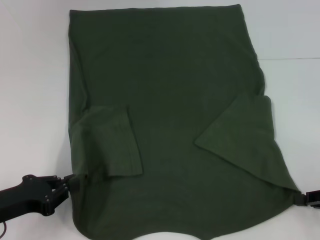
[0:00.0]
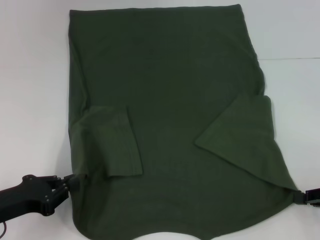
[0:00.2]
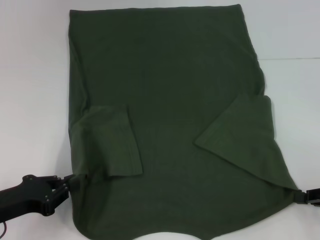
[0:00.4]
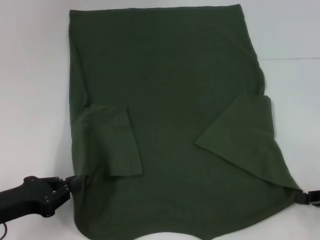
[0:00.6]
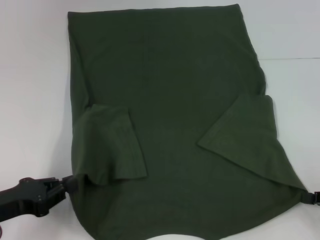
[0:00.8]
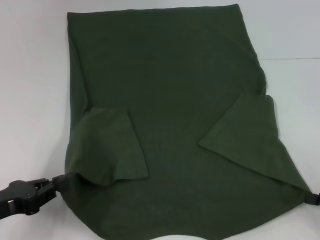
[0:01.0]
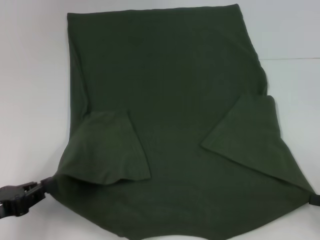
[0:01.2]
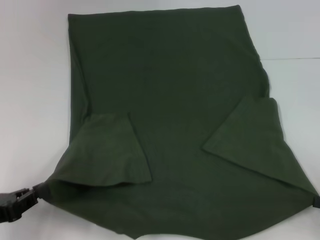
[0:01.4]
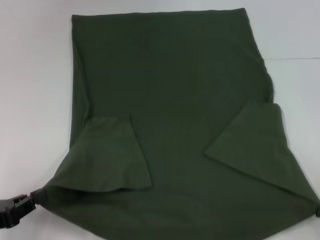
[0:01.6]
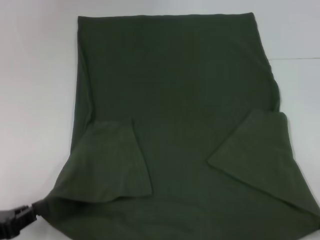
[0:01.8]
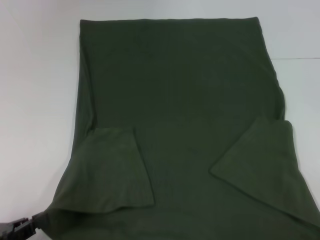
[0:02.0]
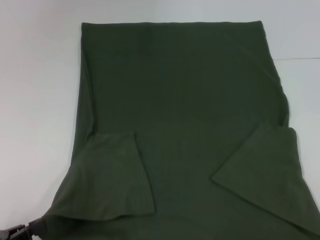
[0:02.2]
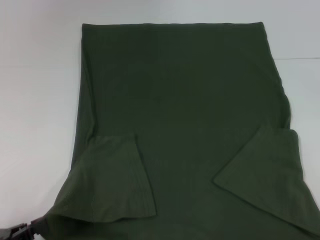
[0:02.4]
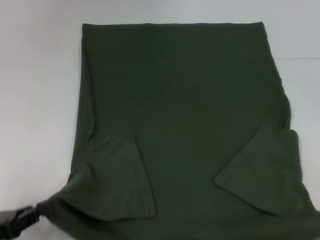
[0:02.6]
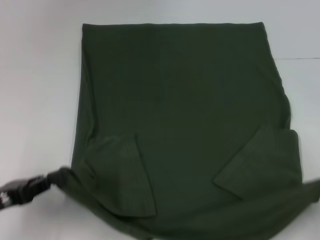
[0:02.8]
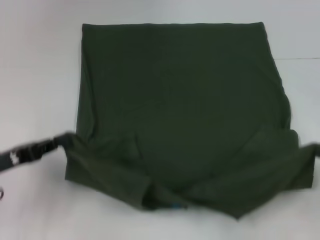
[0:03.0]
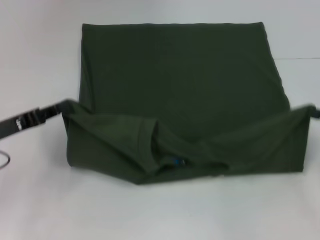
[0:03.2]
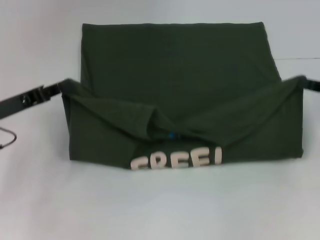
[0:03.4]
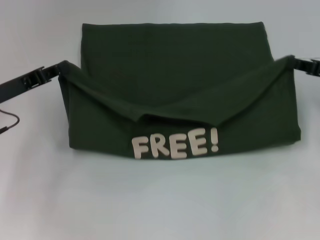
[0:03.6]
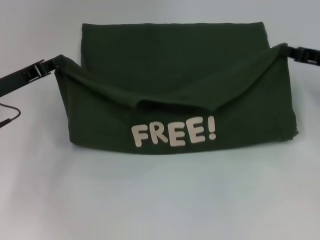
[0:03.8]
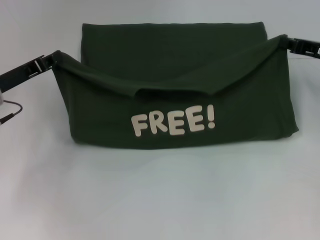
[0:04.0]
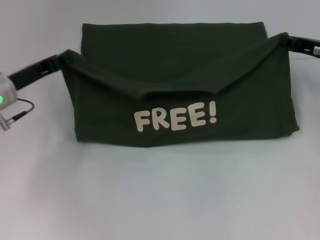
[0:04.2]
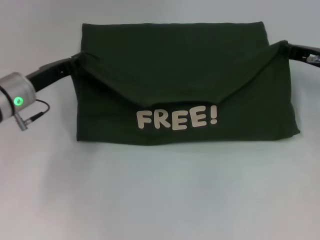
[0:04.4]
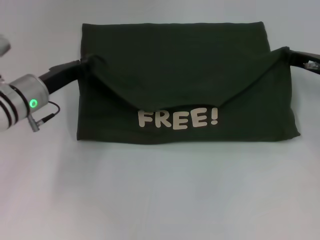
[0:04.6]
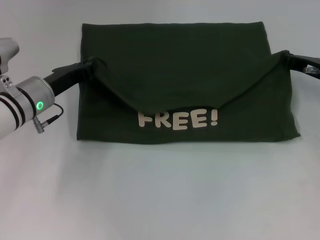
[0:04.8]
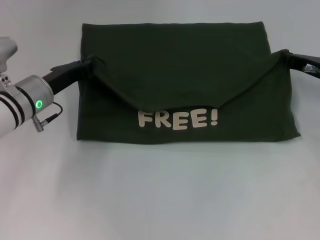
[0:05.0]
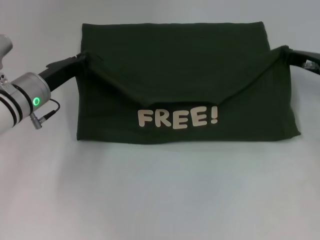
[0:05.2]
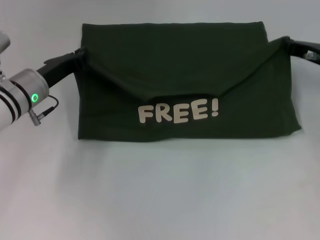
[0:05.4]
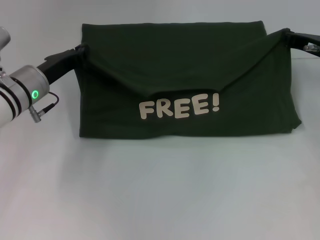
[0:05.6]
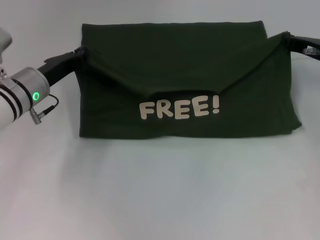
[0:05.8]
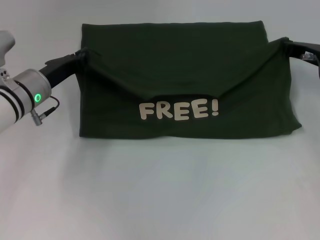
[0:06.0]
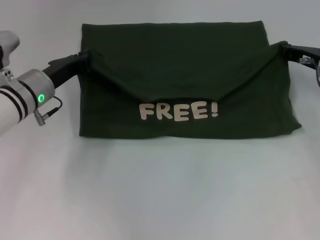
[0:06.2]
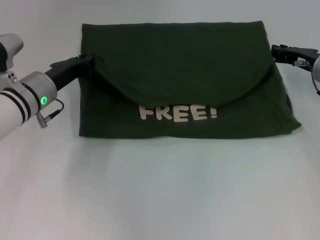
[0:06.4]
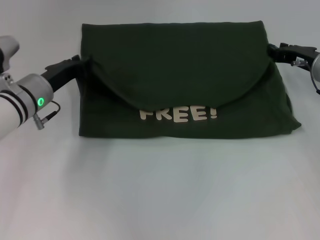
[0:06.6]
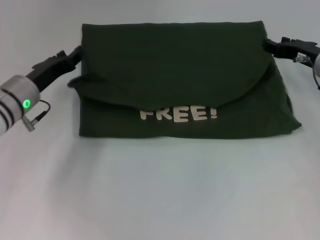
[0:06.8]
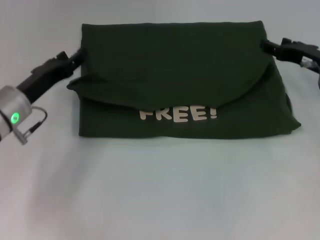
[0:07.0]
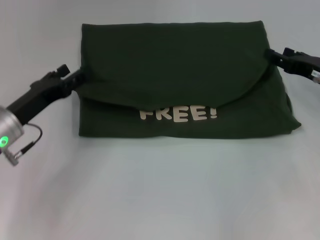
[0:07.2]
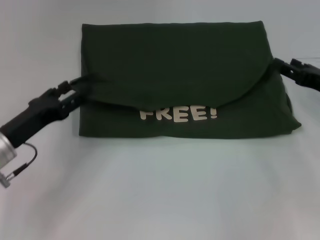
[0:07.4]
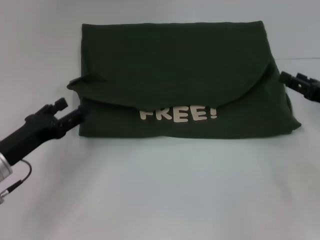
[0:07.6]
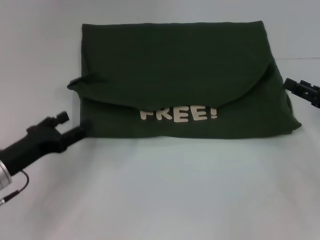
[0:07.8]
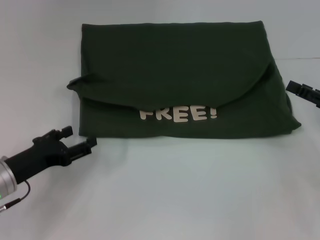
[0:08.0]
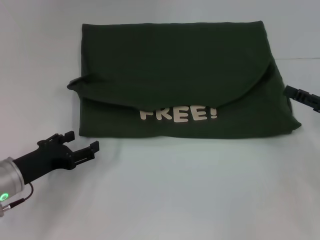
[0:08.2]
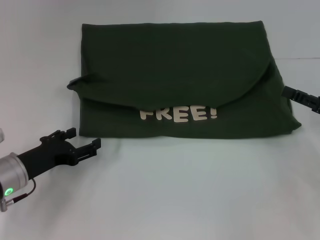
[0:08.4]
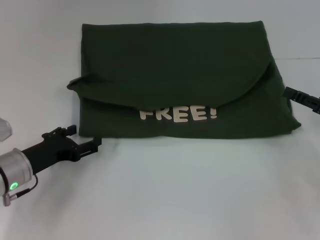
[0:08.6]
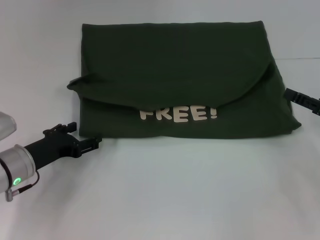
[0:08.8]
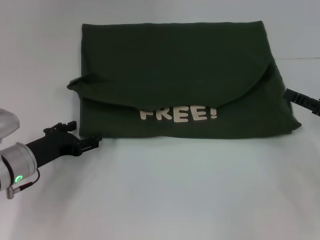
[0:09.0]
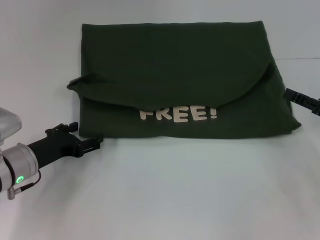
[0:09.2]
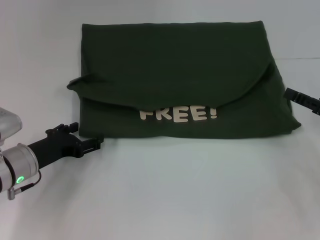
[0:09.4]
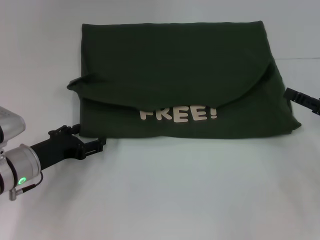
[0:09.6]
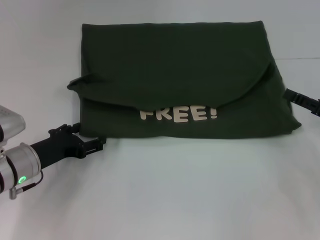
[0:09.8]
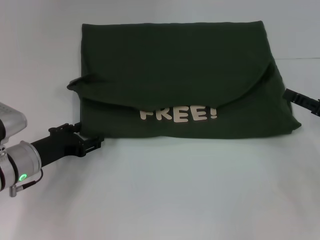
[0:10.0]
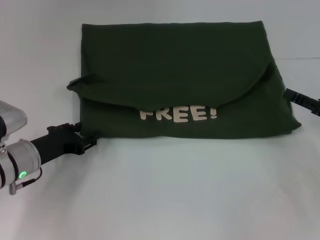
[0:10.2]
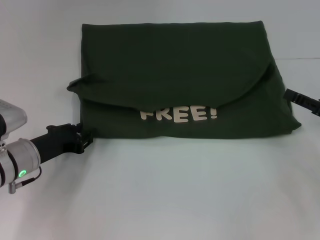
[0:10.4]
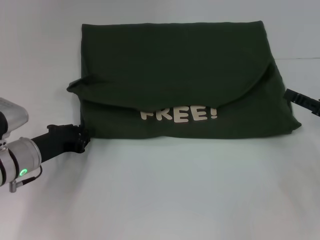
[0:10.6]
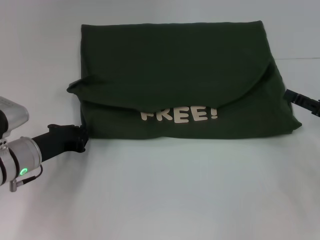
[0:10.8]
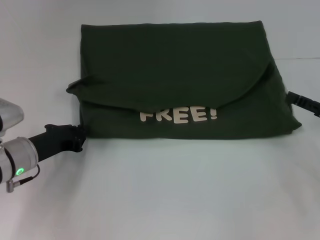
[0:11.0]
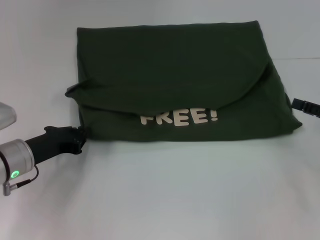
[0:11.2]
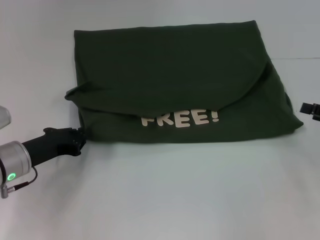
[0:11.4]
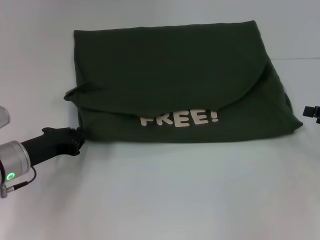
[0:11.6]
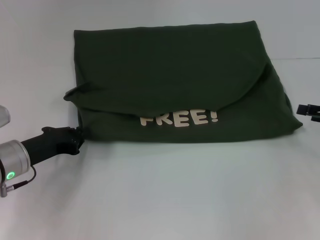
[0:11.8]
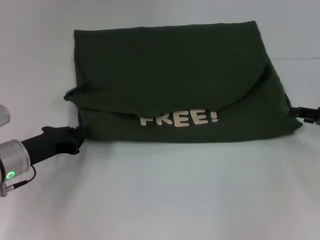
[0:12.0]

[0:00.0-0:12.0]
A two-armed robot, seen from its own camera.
Step, 0:00.4 to 0:07.0: Fold the clothes with your left hand.
Step, 0:00.4 to 0:07.0: Fold the clothes with your right hand.
0:00.0 to 0:01.6: The left gripper ends up some 5 cm from where it was, while the right gripper travels backward by roughly 5 cm.
0:01.6 to 0:03.0: The right gripper shifts by some 5 cm. The left gripper shifts approximately 5 cm forward.
0:03.0 to 0:04.4: The left gripper is displaced forward and to the right by approximately 15 cm. The right gripper is displaced forward and to the left by about 20 cm.
0:04.4 to 0:06.0: The grippers make only small movements.
0:06.0 to 0:07.6: The grippers both shift backward by some 10 cm. The right gripper opens, while the left gripper opens up.
0:09.0 to 0:10.4: The left gripper closes.
0:10.4 to 0:12.0: The left gripper closes up.

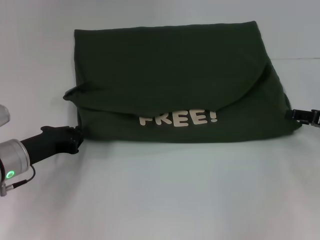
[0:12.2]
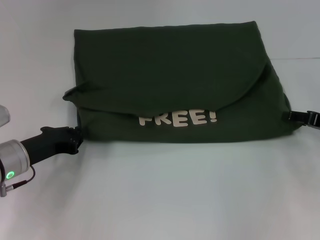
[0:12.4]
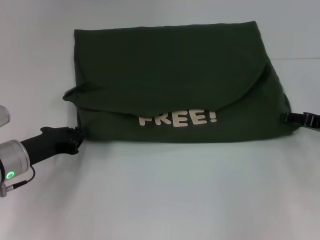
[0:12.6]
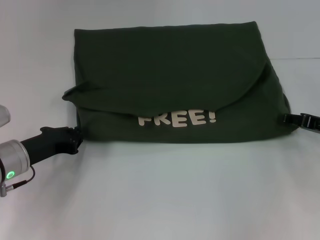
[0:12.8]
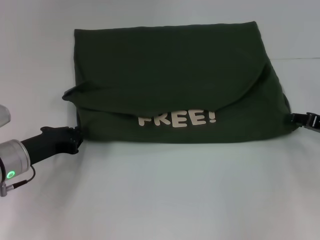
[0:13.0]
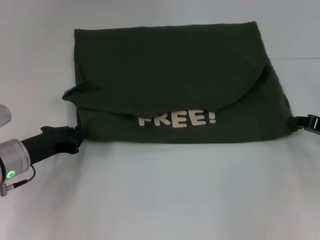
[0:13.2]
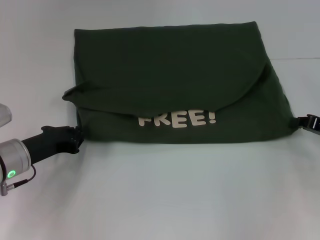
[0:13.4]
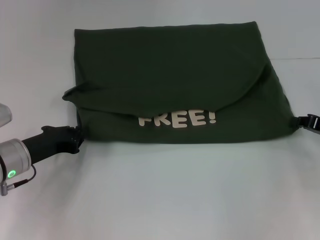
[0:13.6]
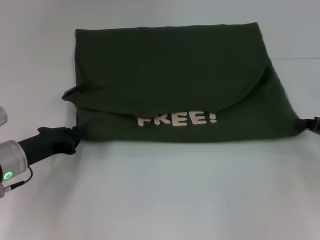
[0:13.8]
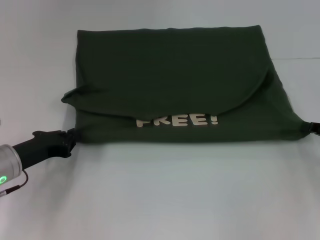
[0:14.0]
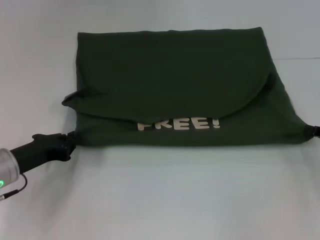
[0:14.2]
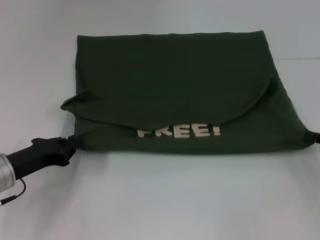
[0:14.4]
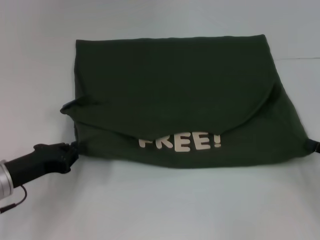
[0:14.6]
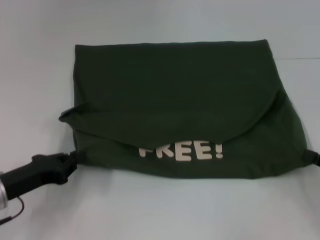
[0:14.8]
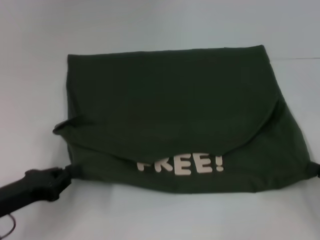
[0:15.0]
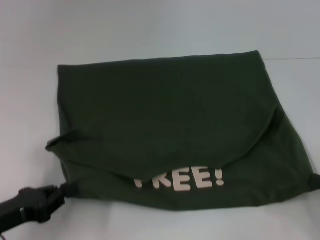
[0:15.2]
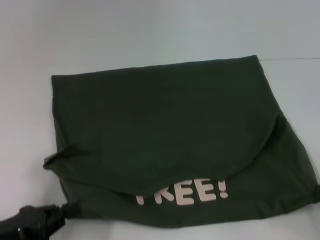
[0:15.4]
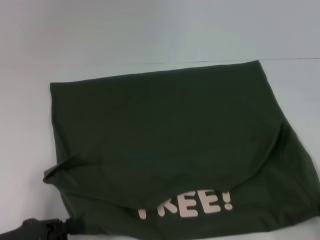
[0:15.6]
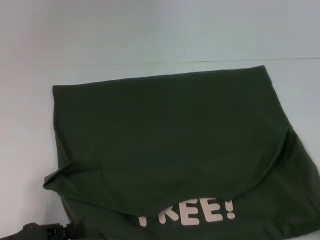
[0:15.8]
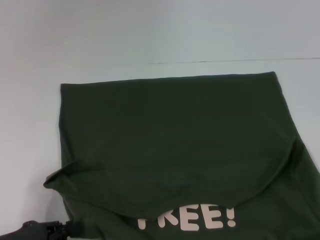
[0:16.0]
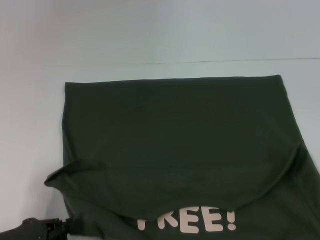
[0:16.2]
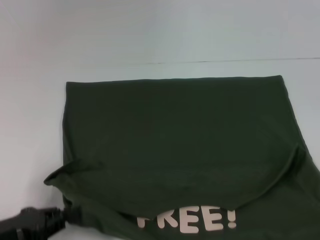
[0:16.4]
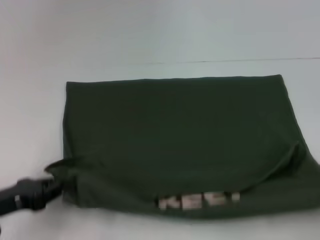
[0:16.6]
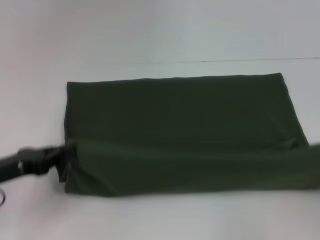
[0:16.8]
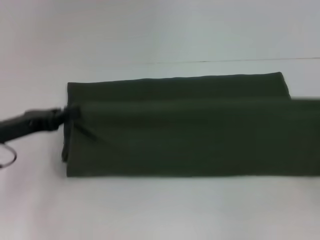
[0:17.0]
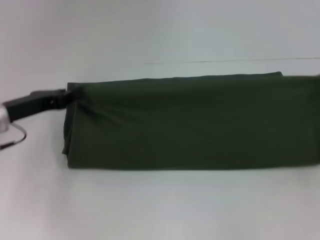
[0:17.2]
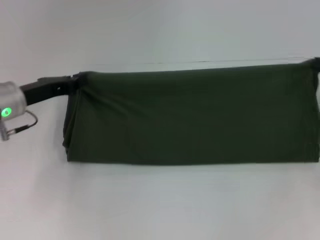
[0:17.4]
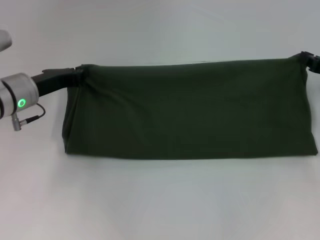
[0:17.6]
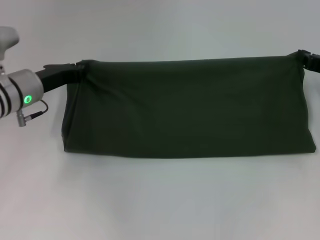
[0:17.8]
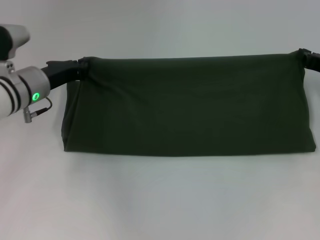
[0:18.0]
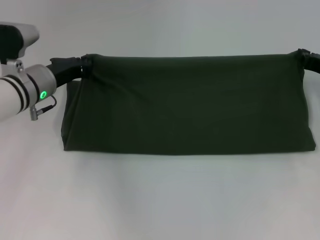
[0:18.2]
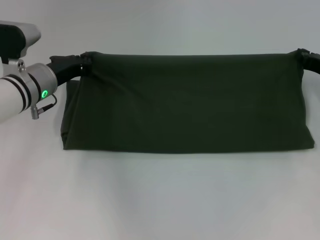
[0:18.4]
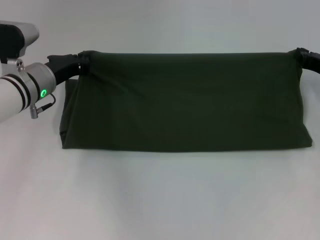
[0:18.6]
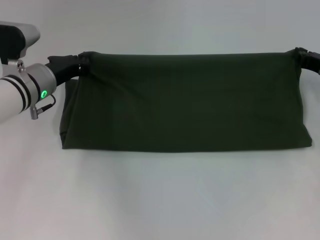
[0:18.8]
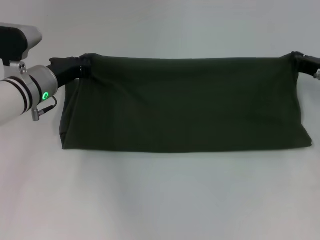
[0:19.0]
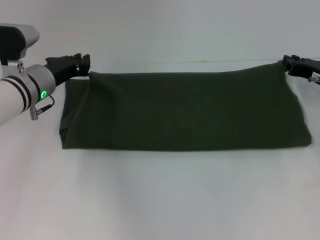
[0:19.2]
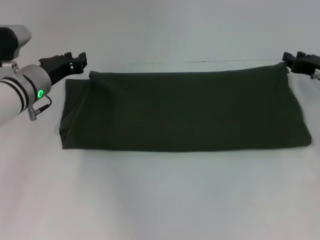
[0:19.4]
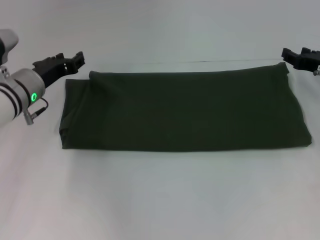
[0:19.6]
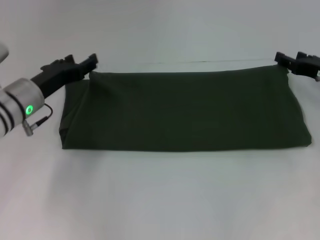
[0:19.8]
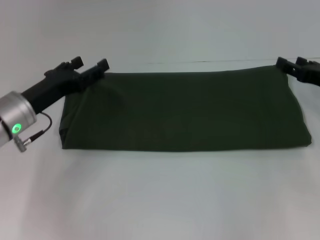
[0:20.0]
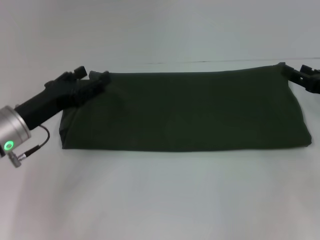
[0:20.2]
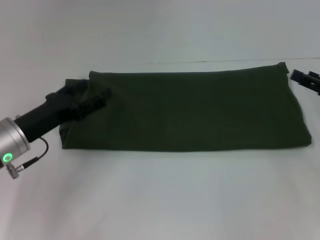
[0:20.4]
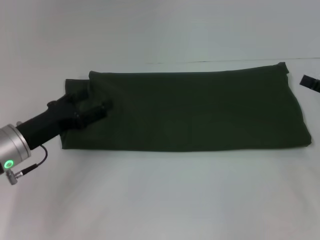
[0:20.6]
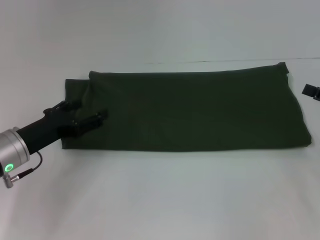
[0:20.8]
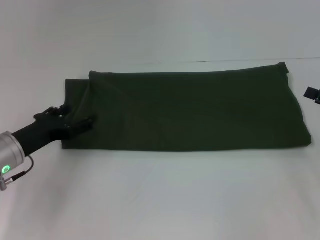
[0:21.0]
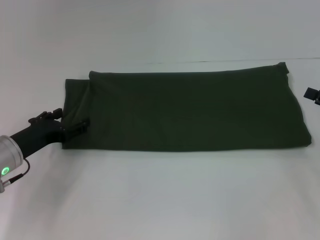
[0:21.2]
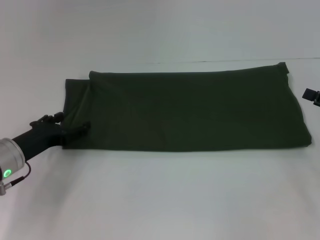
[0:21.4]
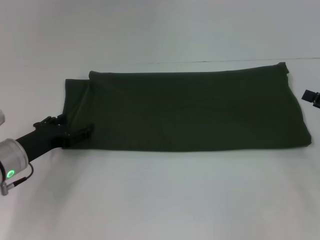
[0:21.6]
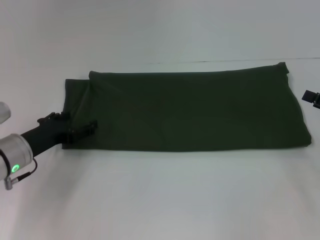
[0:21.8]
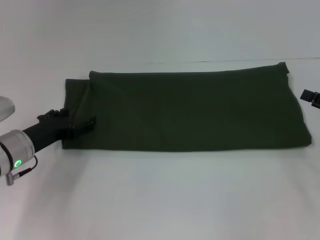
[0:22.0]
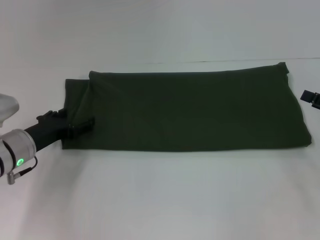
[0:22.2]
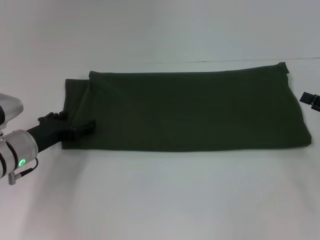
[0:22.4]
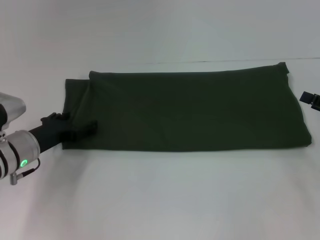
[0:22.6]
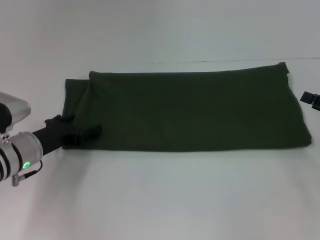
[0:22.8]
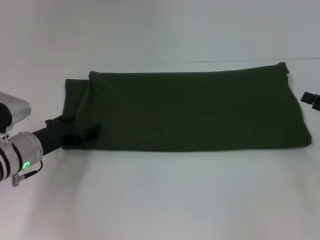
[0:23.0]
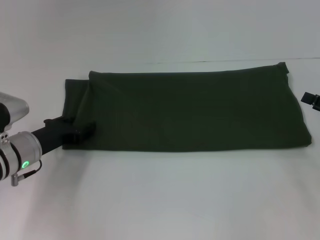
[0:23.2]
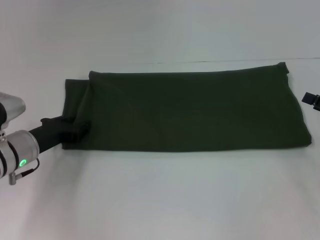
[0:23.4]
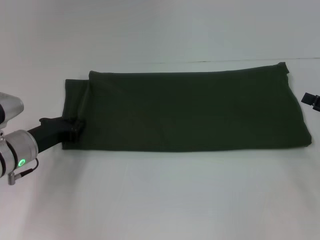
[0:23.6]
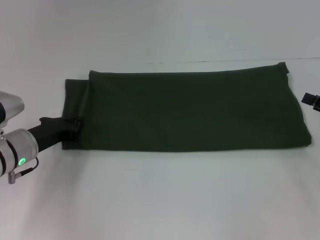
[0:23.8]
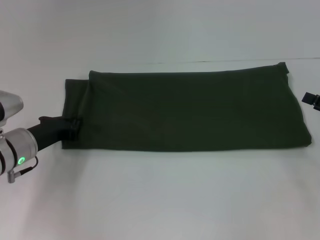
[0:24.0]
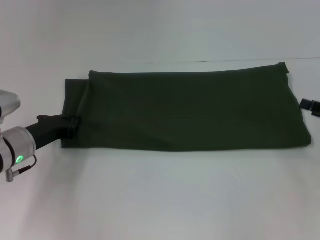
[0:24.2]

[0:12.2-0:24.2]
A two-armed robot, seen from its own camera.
Step, 0:12.2 to 0:15.8: Pull the clothes with your left hand.
Step, 0:12.2 to 0:15.8: Pull the clothes with your right hand.
Step, 0:16.0 to 0:19.4: Fold the clothes with your right hand.
0:12.2 to 0:13.8: The right gripper closes up.
0:13.8 to 0:15.2: The two grippers go roughly 10 cm backward.
0:15.2 to 0:16.6: The right gripper heads backward, covering approximately 5 cm.
0:16.6 to 0:18.2: The right gripper goes some 25 cm forward. The left gripper is displaced forward and to the right by approximately 20 cm.
0:18.2 to 0:19.8: The left gripper opens up. Meanwhile the right gripper opens up.
0:19.8 to 0:21.2: The right gripper heads backward and to the right, covering approximately 10 cm. Meanwhile the left gripper is displaced backward by roughly 5 cm.
0:21.2 to 0:22.6: The grippers make only small movements.
0:22.6 to 0:24.2: The left gripper closes.
